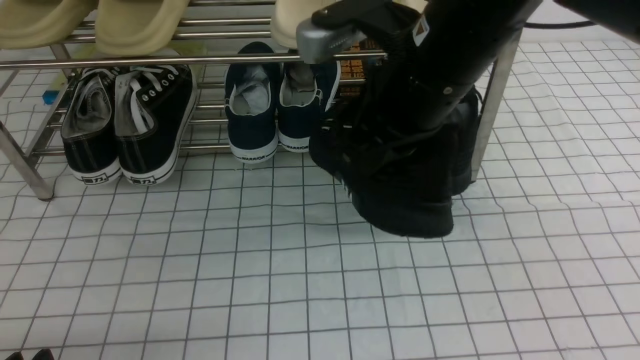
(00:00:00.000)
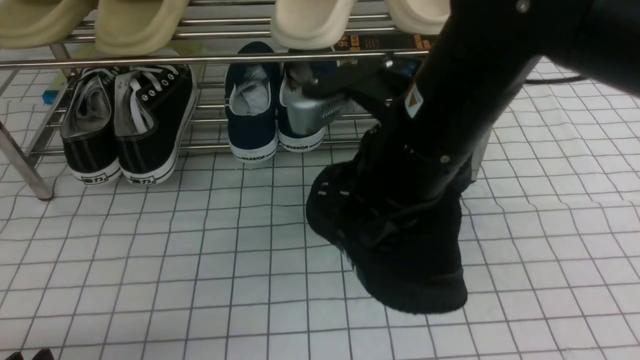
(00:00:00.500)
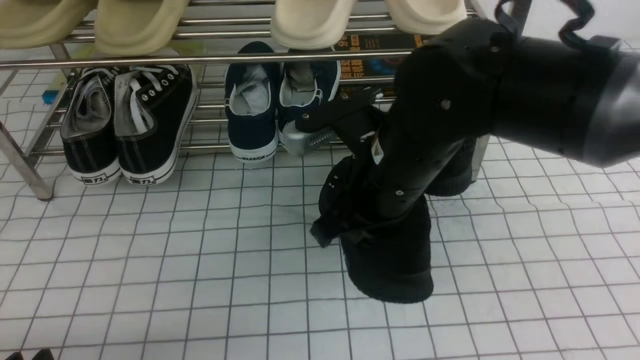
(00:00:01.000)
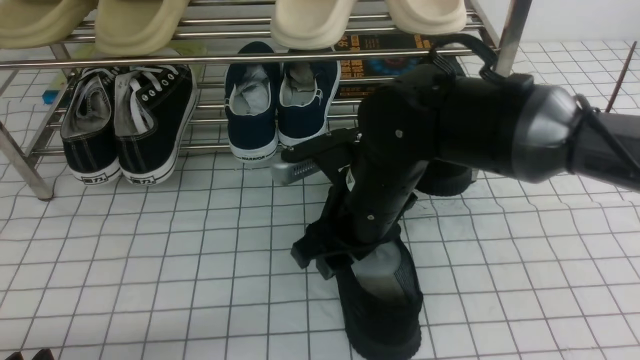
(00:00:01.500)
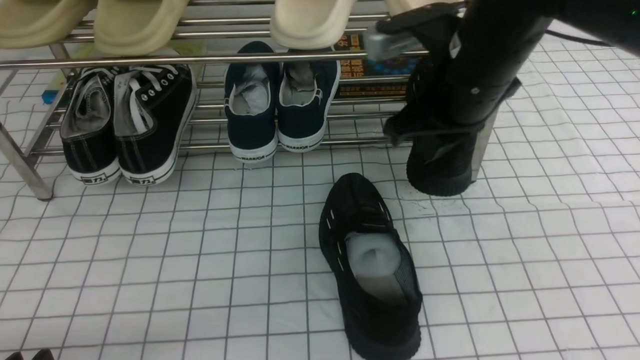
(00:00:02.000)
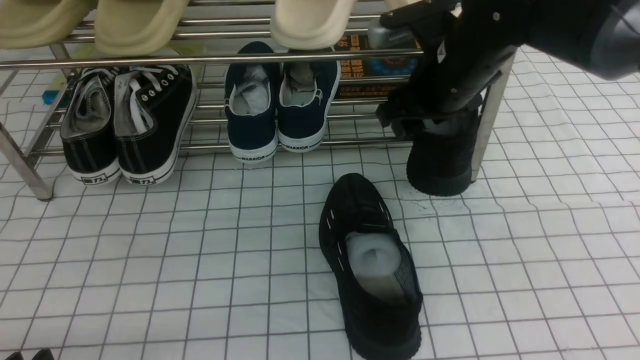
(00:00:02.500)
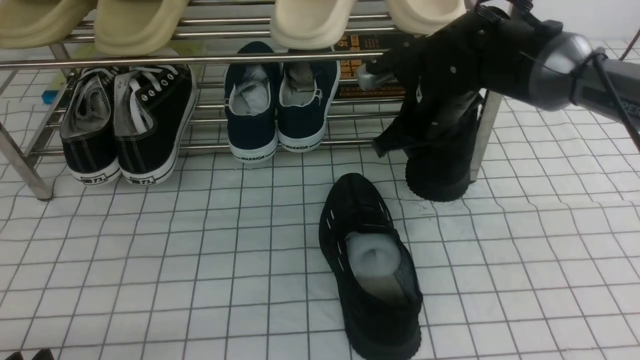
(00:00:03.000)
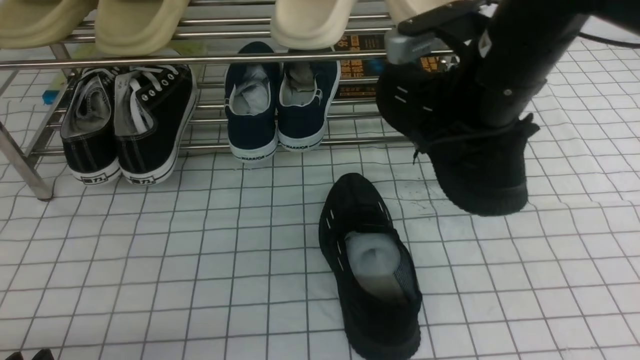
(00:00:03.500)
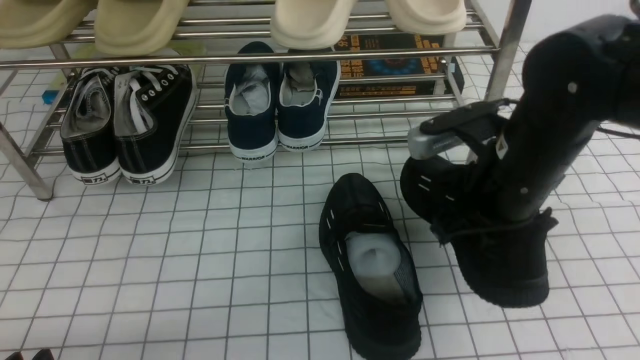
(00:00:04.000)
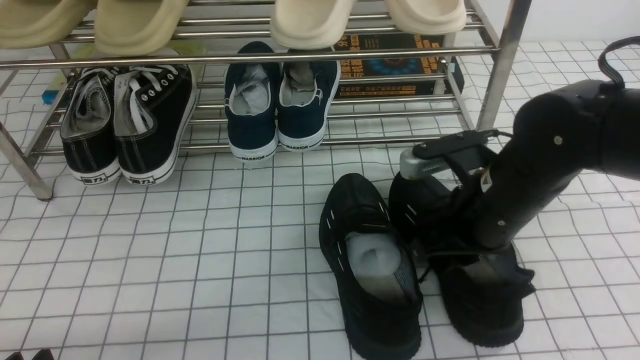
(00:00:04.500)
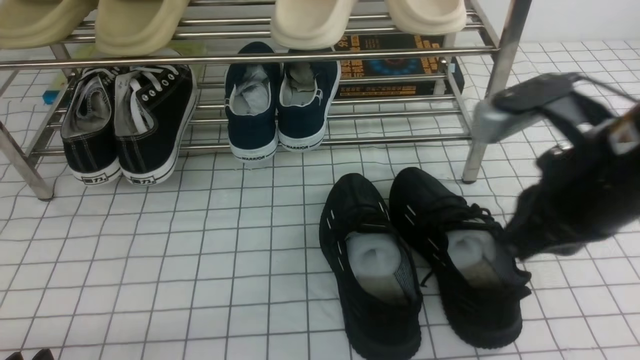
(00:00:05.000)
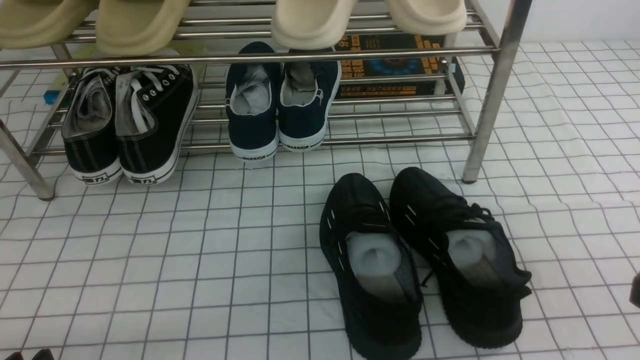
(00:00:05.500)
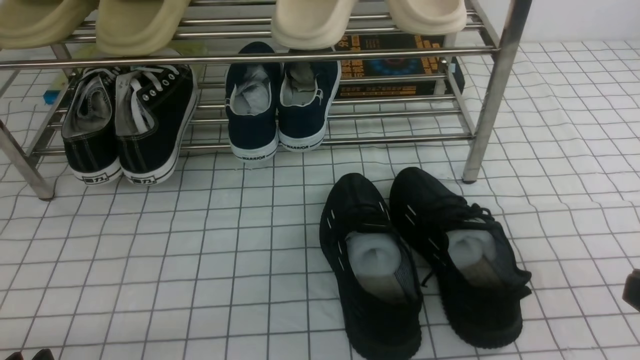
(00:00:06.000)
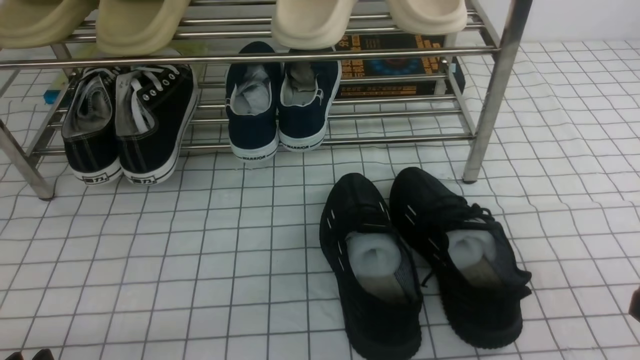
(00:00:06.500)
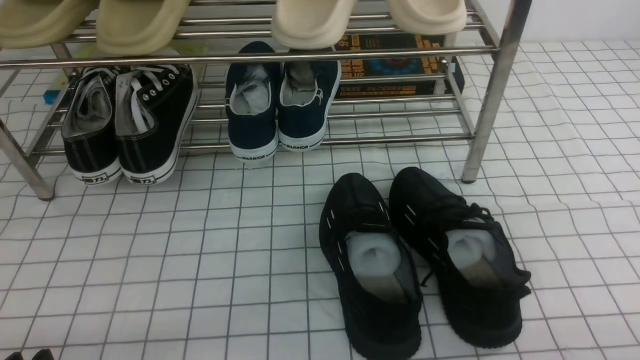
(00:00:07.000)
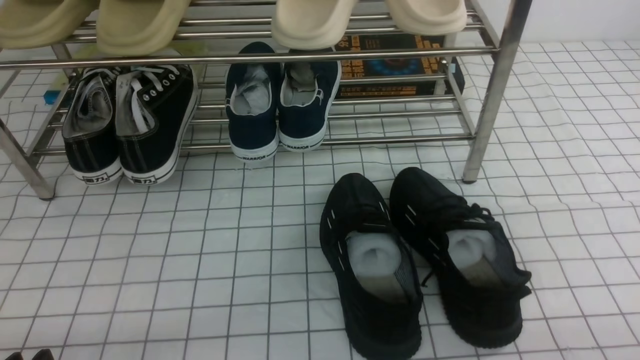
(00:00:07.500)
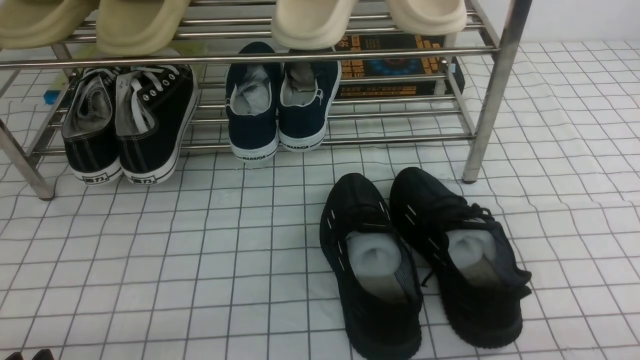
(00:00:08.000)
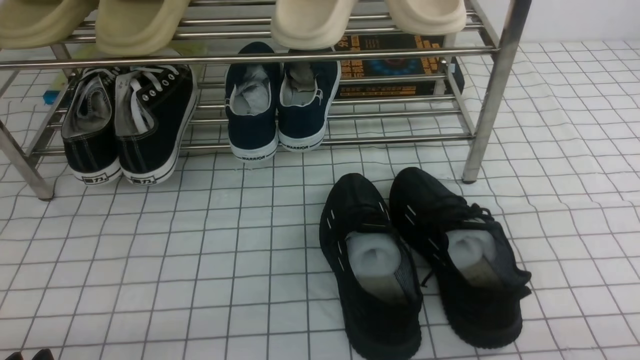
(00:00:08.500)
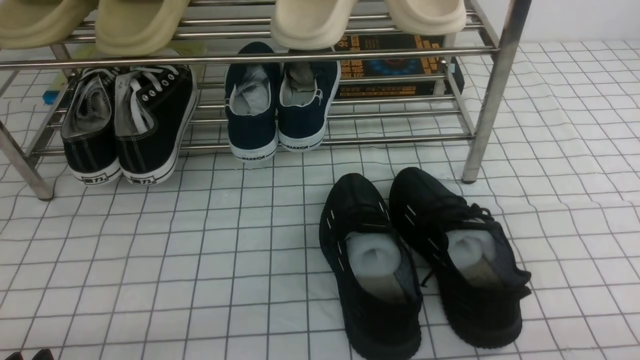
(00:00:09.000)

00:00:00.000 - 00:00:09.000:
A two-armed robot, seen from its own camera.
Step, 00:00:00.000 - 00:00:01.500: use the right arm to take out the clamped shoe from the shoe rack and put it down.
Step, 00:00:02.000 - 00:00:03.000: use the right arm to clamp a shoe on the right side of the shoe rack.
Step, 00:00:03.500 - 00:00:04.500: use the right arm to take out the clamped shoe from the shoe rack and put it down.
00:00:00.000 - 00:00:02.000: The right gripper opens, then closes once more.
00:00:02.000 - 00:00:04.500: The right gripper moves downward and to the right, roughly 10 cm, travels forward and back again, roughly 10 cm each way, and opens and closes again.
00:00:04.500 - 00:00:07.000: The right gripper travels backward and to the right by some 30 cm.

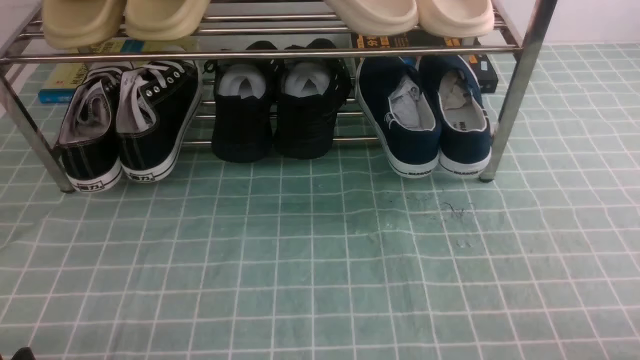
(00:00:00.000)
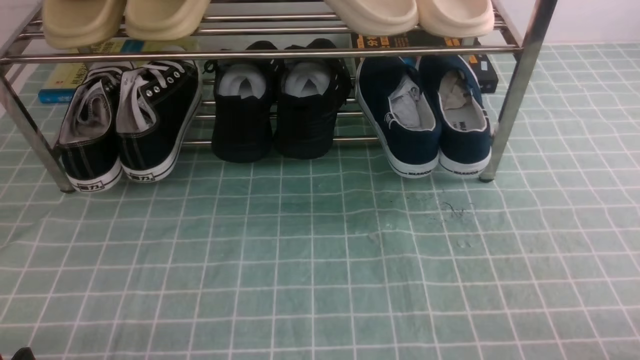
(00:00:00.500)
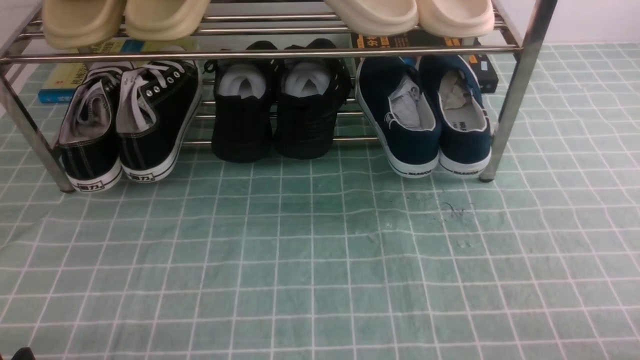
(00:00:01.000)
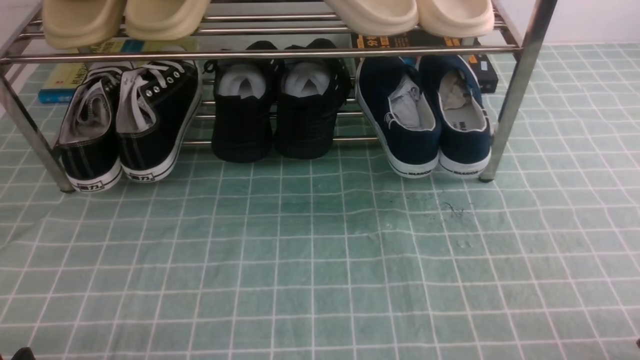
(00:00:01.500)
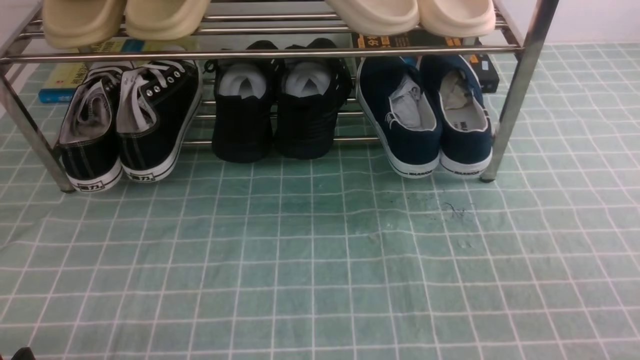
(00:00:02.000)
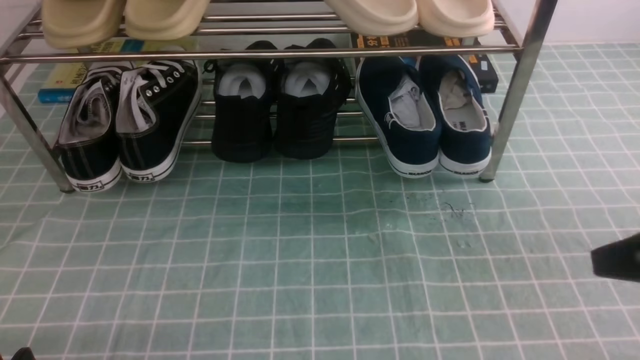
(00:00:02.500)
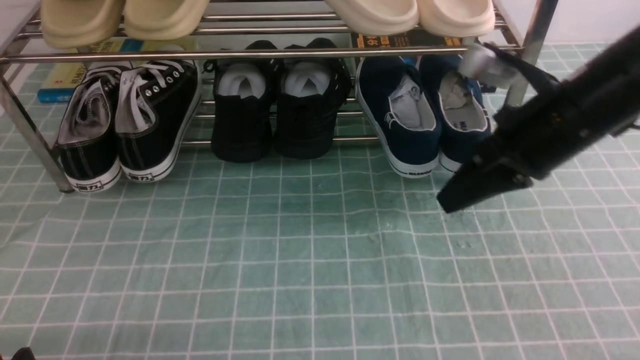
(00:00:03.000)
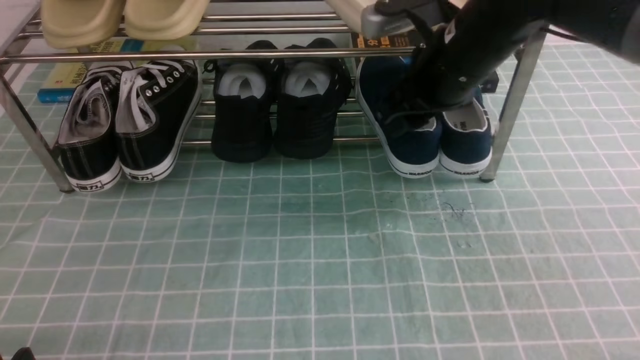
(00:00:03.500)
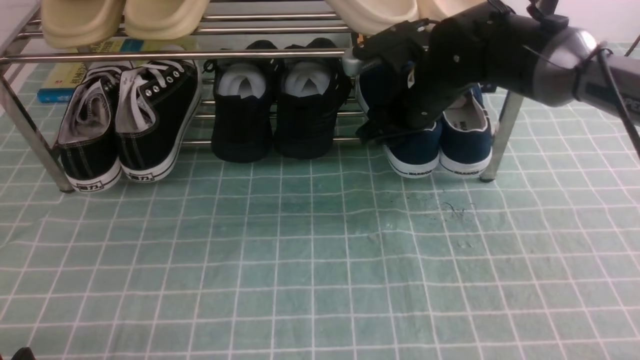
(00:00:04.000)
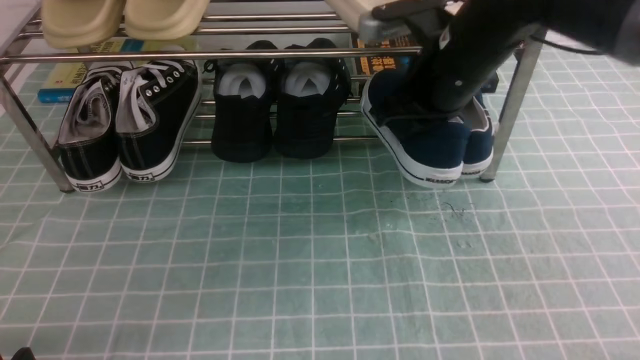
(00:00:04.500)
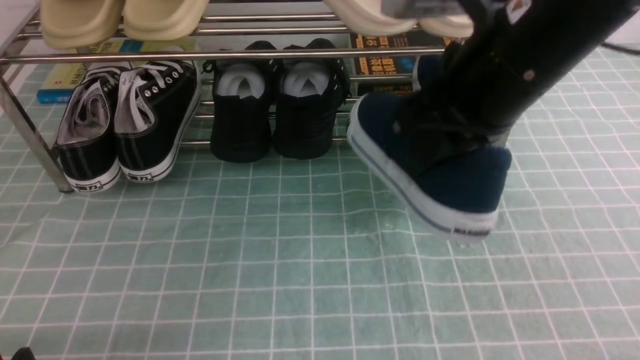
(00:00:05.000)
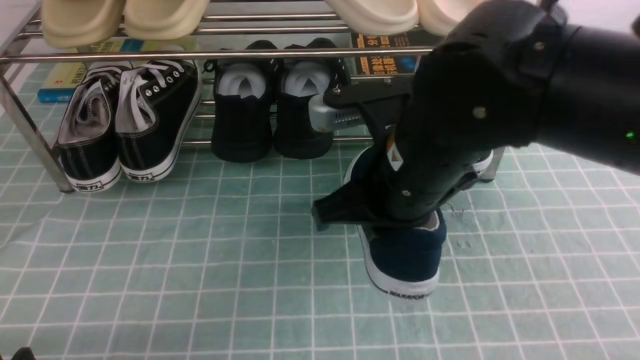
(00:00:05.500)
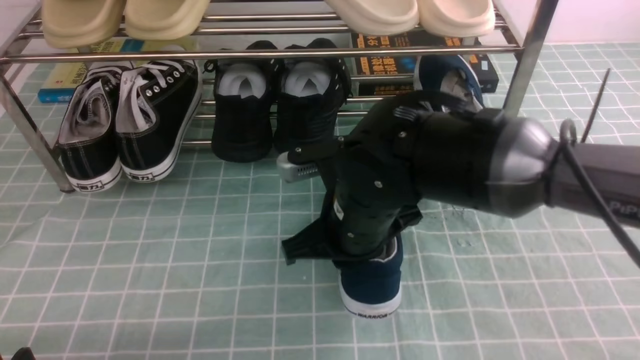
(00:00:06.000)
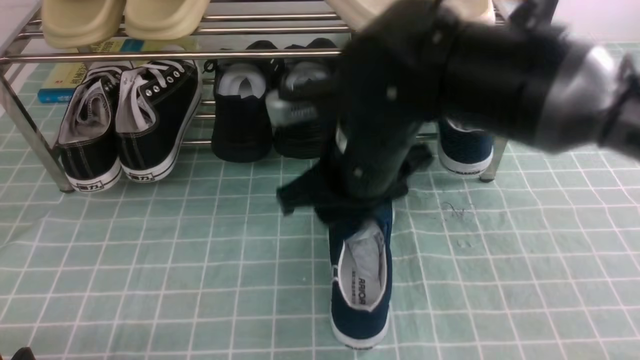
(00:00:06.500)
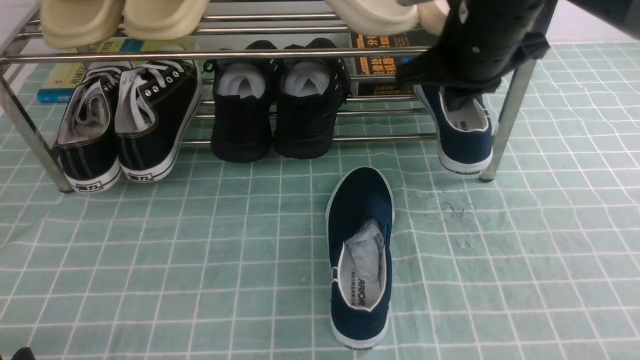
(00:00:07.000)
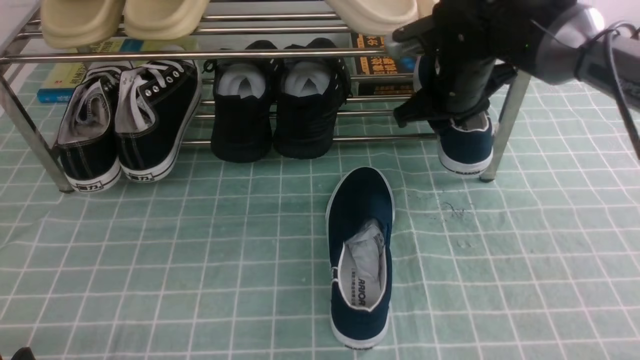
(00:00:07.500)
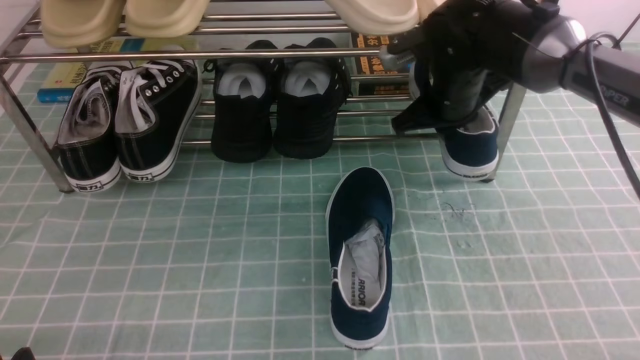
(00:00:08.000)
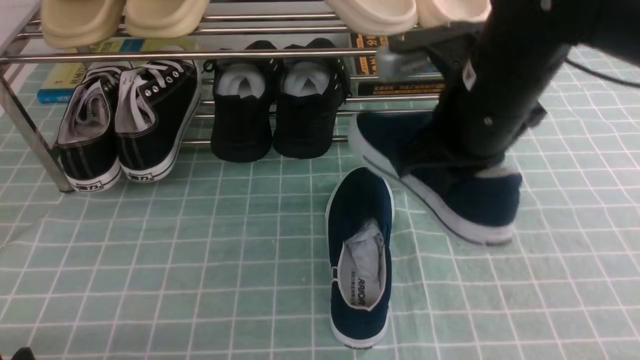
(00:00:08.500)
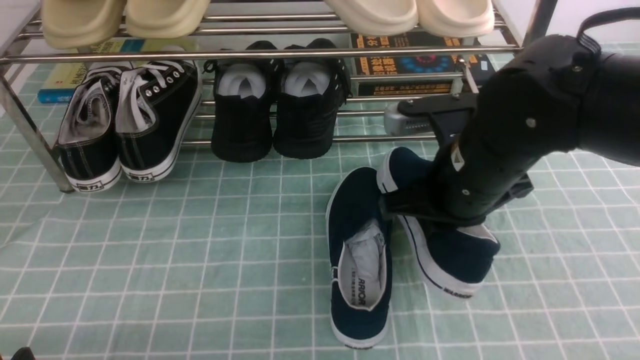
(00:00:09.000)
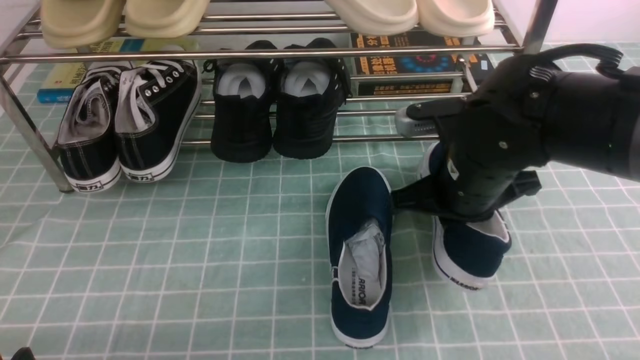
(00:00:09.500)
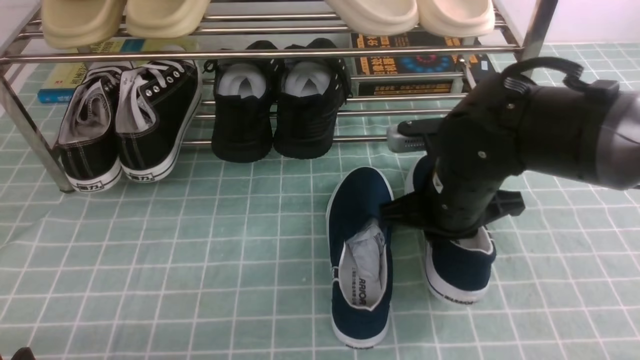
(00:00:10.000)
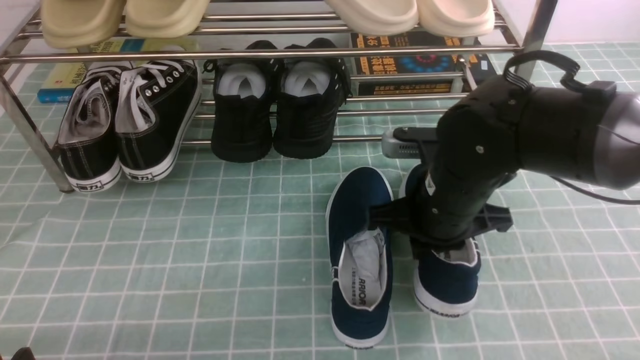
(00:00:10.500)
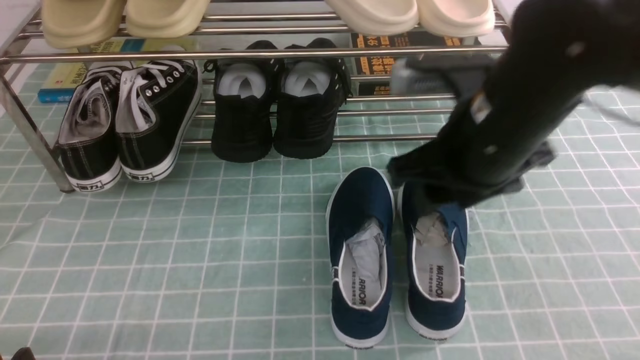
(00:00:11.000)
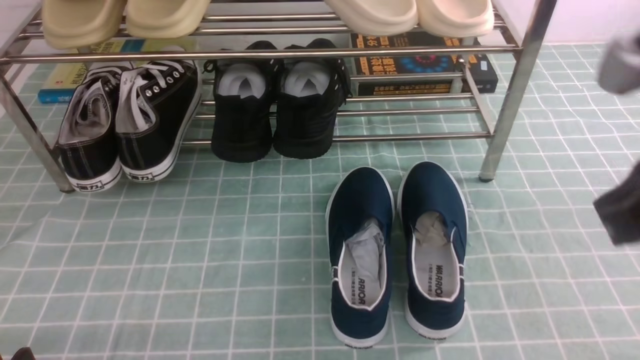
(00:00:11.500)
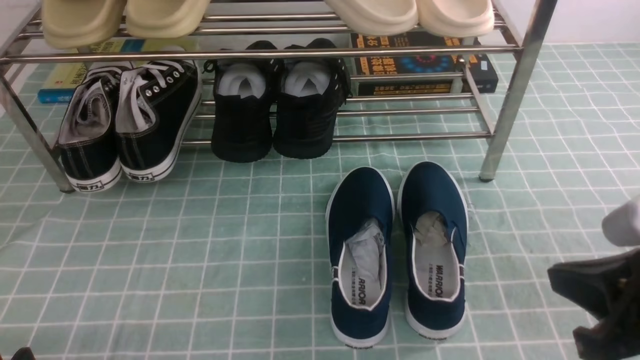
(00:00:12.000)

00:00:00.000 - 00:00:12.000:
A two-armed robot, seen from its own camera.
Step, 00:00:00.000 - 00:00:04.000: use the right arm to clamp a shoe on the right side of the shoe rack.
Step, 00:00:04.500 - 00:00:06.000: use the right arm to take out the clamped shoe from the shoe rack and put it down.
Step, 00:00:06.500 - 00:00:07.500: use the right arm to clamp a shoe on the right side of the shoe rack.
Step, 00:00:08.000 - 00:00:10.500: use the right arm to take out the clamped shoe from the shoe rack and put it down.
00:00:02.000 - 00:00:04.000: The right gripper shifts some 40 cm forward and to the left, and opens its fingers.
00:00:04.000 - 00:00:06.000: The right gripper is displaced backward and to the left by roughly 15 cm, and closes up.
00:00:06.000 - 00:00:08.000: The right gripper goes some 20 cm forward and to the right, and opens and closes again.
00:00:08.000 - 00:00:10.000: The right gripper heads backward, covering about 10 cm.
00:00:10.000 - 00:00:12.000: The right gripper shifts approximately 20 cm backward and to the right, and opens and closes again.
